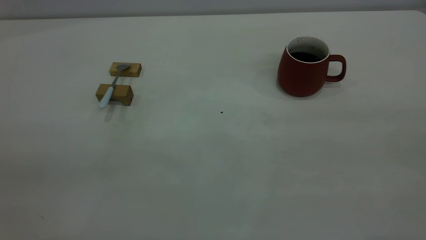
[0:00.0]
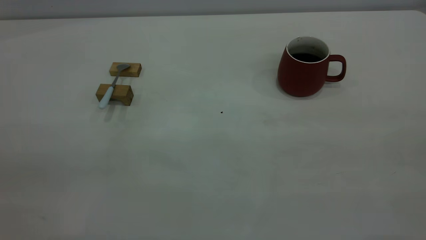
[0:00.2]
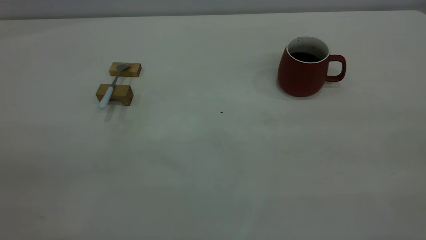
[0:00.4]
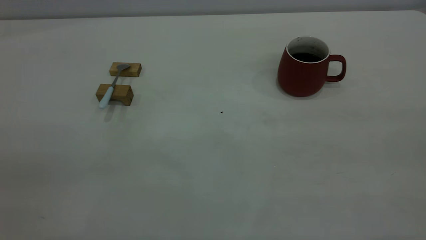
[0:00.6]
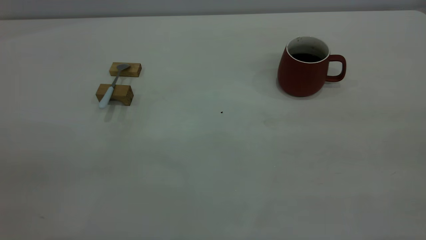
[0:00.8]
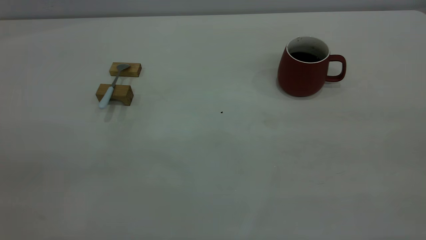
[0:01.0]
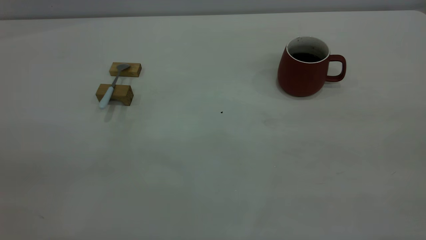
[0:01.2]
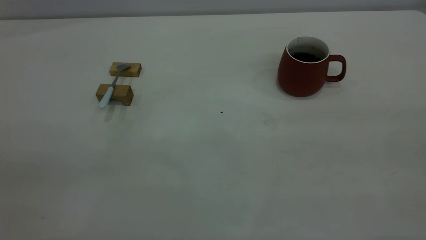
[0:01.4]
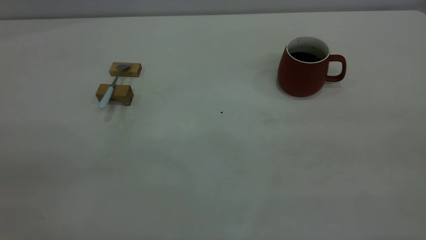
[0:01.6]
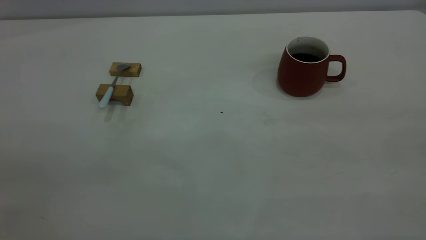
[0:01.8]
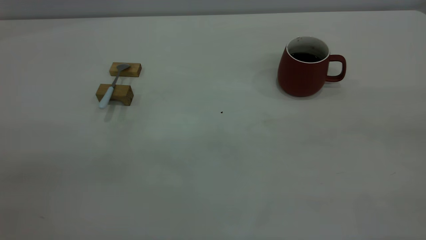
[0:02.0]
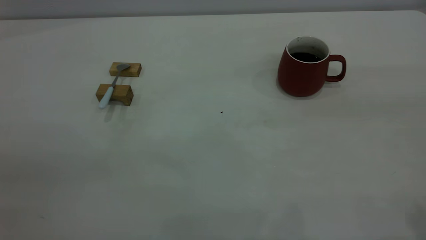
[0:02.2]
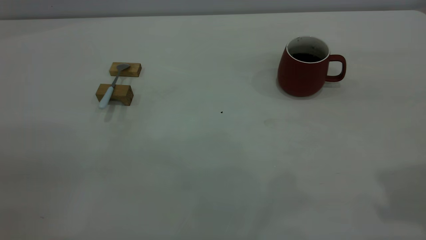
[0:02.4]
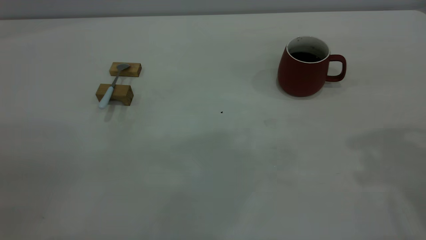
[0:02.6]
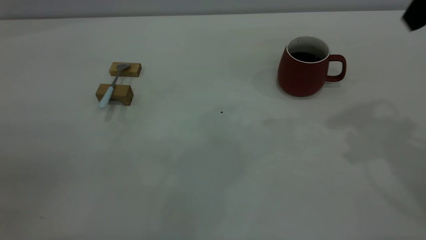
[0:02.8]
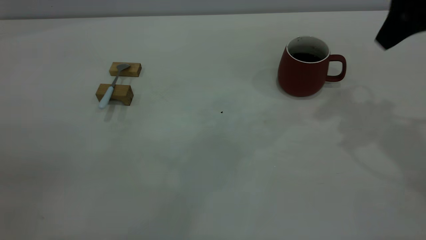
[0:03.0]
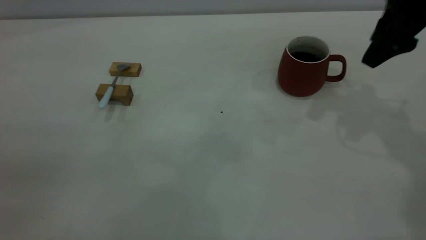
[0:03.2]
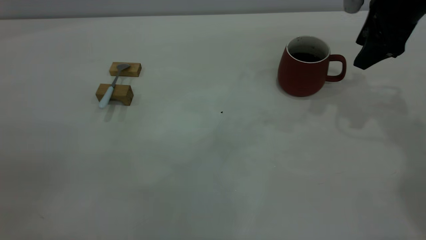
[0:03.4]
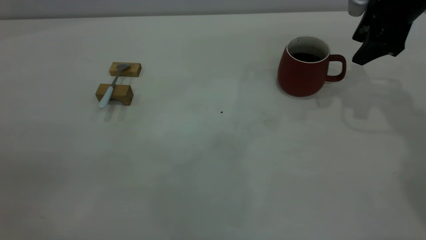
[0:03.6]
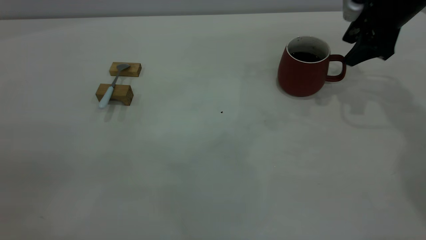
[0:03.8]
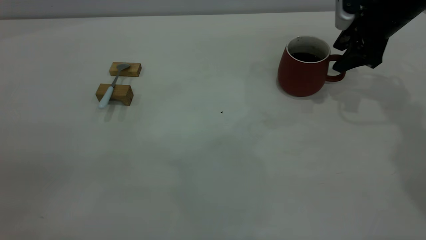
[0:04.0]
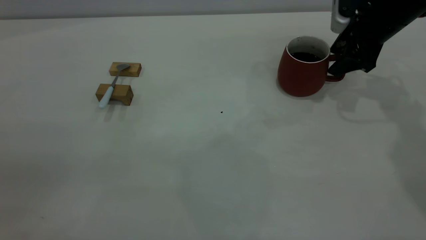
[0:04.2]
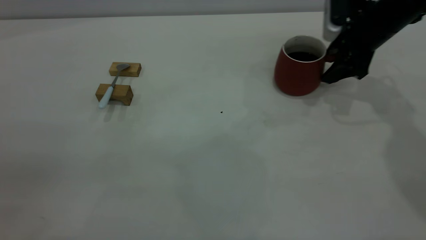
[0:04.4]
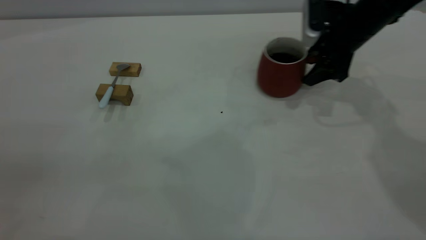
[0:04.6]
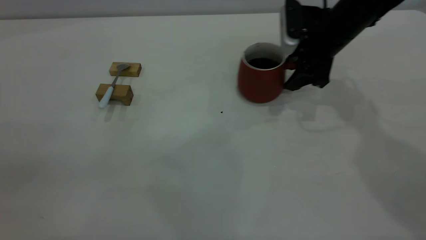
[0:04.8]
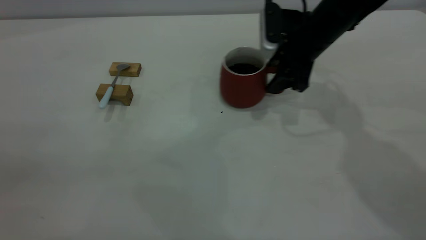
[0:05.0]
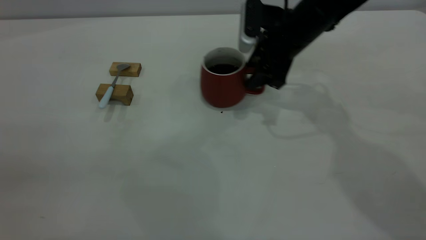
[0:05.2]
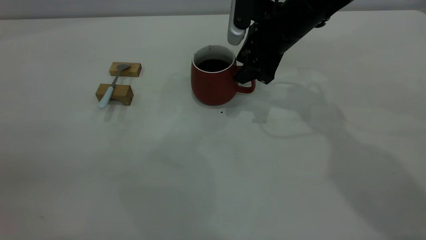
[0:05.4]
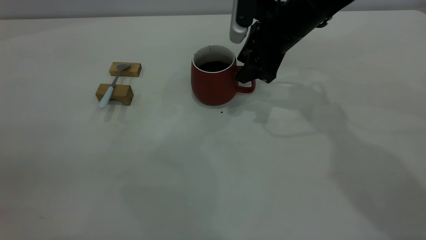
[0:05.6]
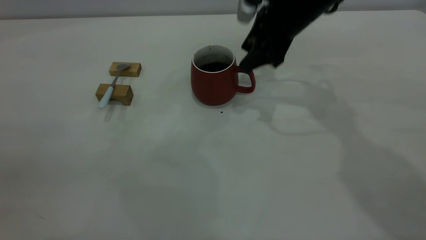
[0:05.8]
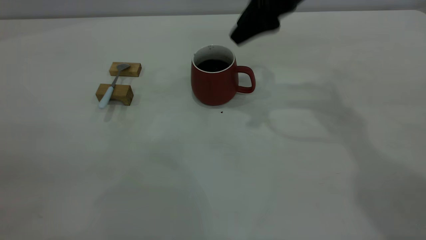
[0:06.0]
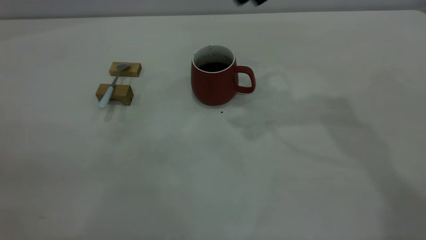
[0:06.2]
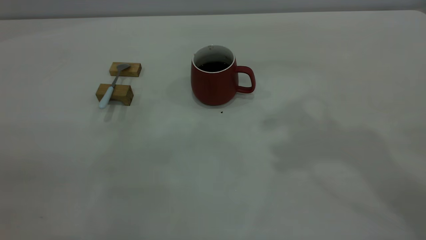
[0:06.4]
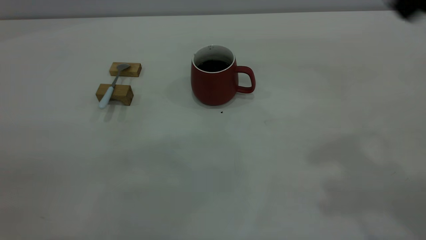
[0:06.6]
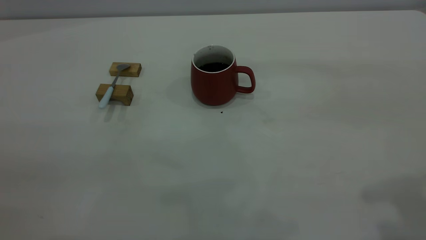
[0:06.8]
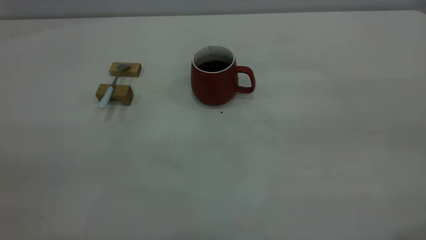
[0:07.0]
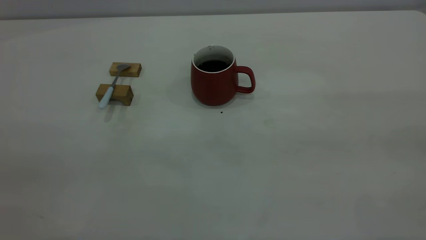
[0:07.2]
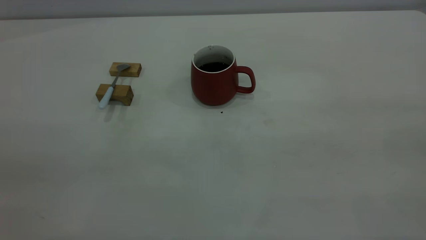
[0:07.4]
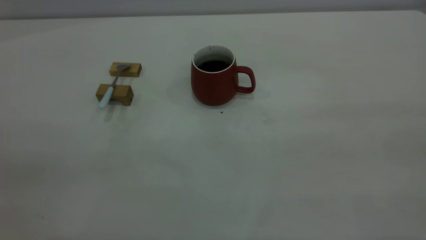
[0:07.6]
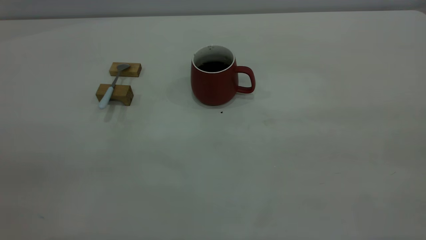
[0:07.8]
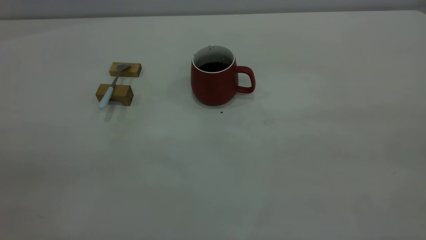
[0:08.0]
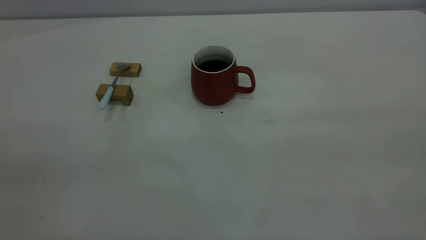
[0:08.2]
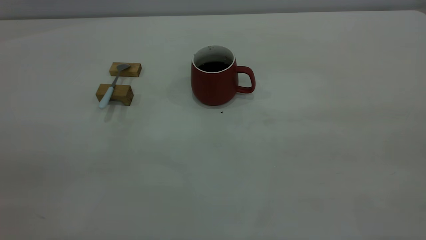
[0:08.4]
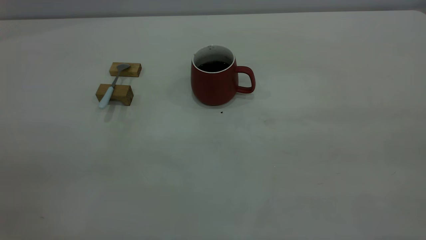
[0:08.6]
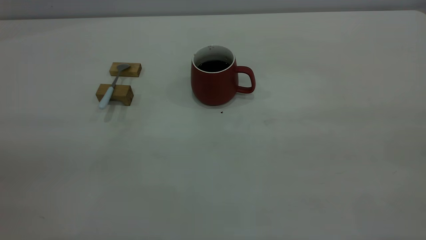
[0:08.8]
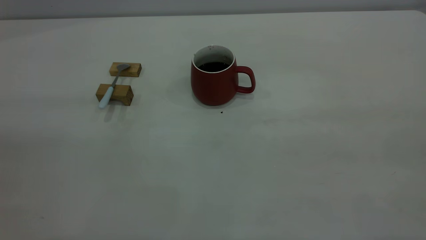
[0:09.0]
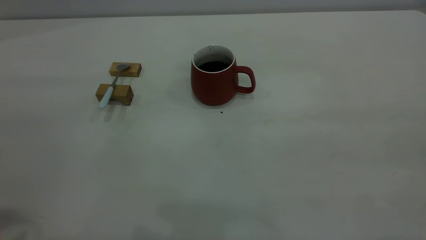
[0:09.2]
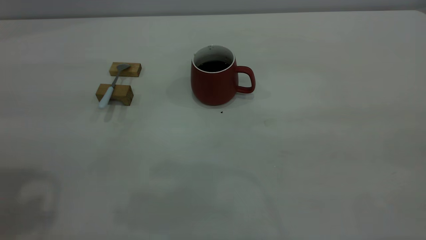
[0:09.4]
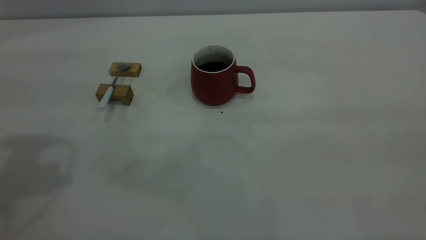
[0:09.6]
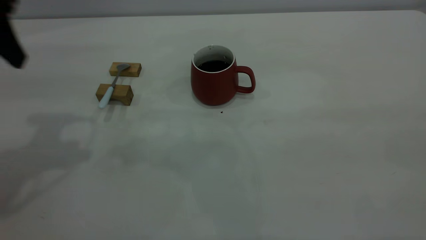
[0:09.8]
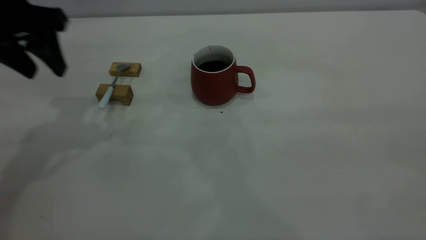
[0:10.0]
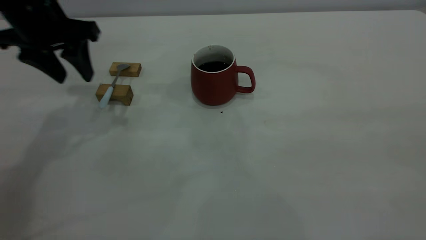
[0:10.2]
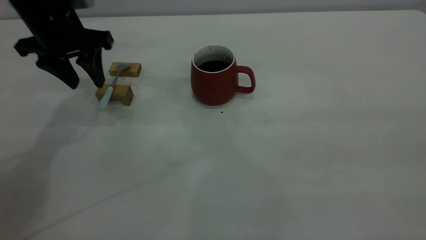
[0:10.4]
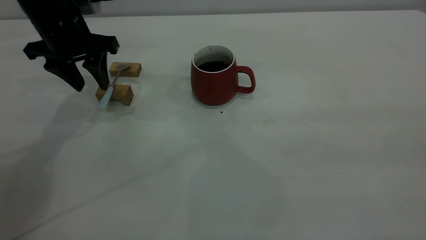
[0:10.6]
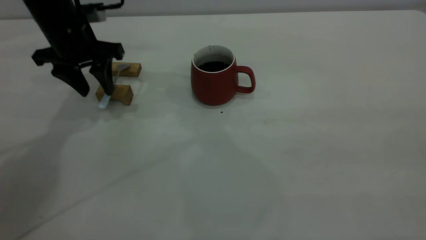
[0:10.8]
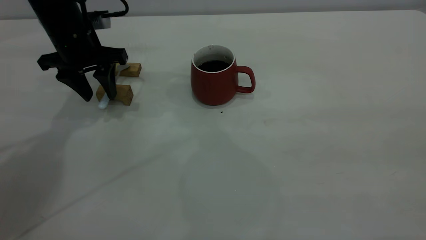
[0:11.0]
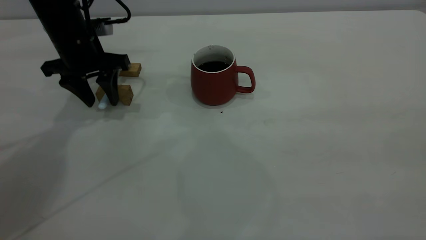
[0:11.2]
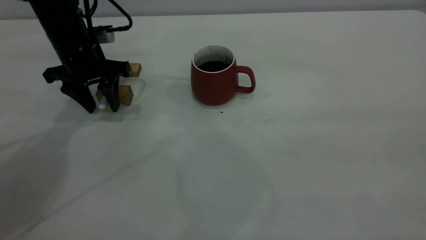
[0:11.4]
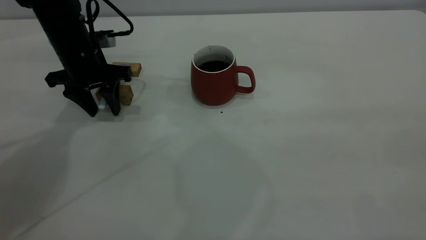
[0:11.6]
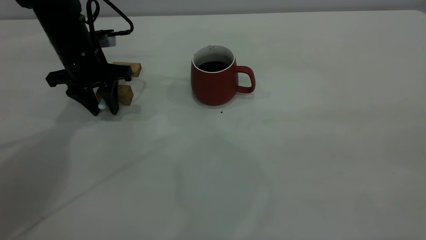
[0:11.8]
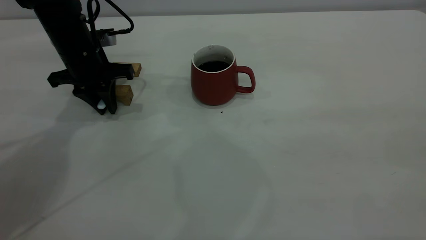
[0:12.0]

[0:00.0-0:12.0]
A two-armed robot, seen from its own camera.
Step, 0:00.0 to 0:05.8: Move the cup with coffee to the center of view.
0:00.0 to 0:01.6: Both grippers stay about where they are.
0:01.6 to 0:03.0: The right gripper shifts some 35 cm forward.
0:03.0 to 0:04.4: The right gripper is displaced downward and forward by roughly 15 cm.
0:04.4 to 0:06.0: The right gripper moves to the left and upward, approximately 20 cm.
0:06.0 to 0:07.6: The right gripper moves backward and to the right, roughly 40 cm.
0:09.0 to 0:10.4: The left gripper goes approximately 40 cm forward and downward.
0:10.4 to 0:12.0: The left gripper moves downward, approximately 5 cm, and closes up.

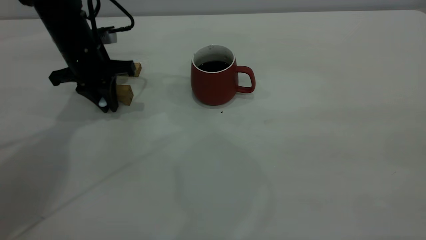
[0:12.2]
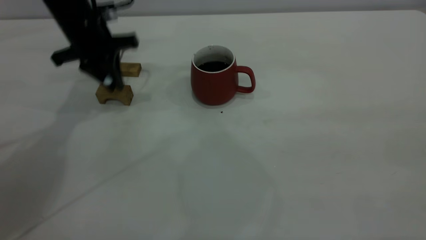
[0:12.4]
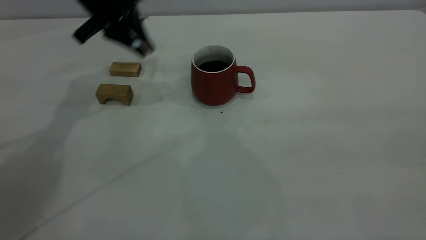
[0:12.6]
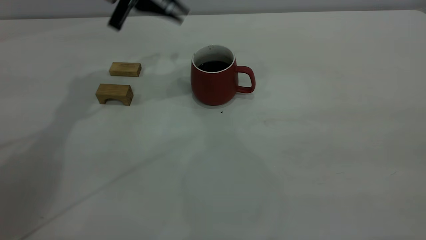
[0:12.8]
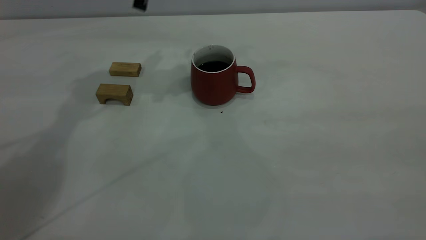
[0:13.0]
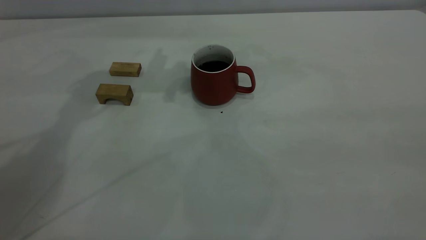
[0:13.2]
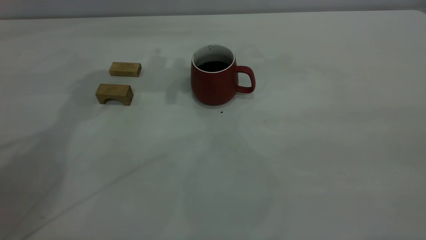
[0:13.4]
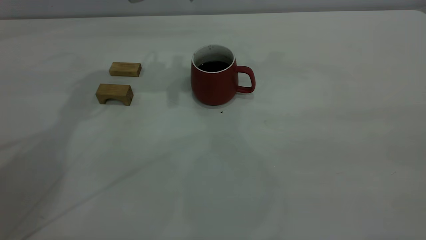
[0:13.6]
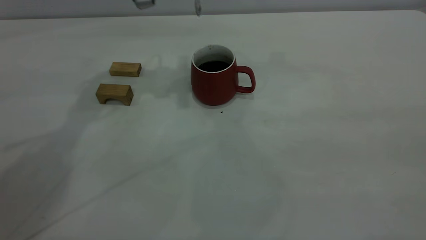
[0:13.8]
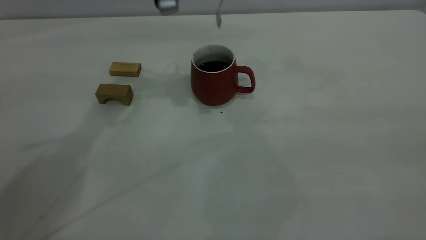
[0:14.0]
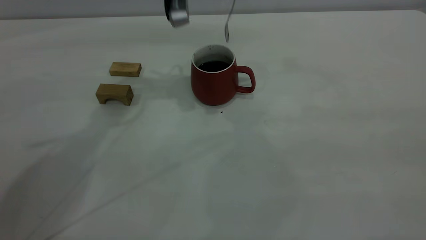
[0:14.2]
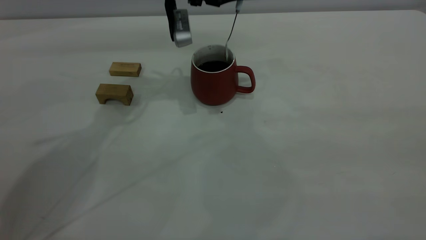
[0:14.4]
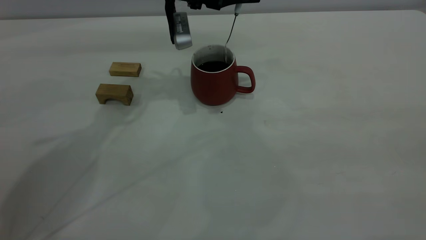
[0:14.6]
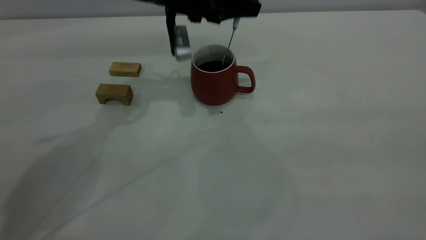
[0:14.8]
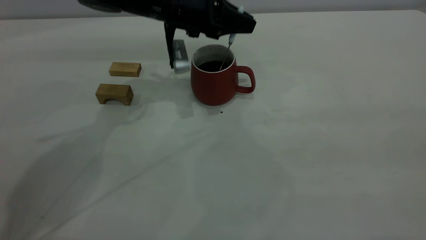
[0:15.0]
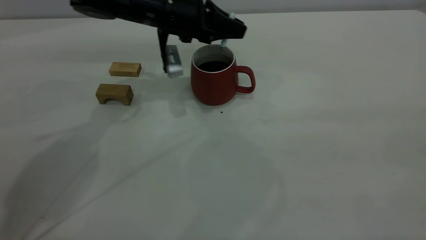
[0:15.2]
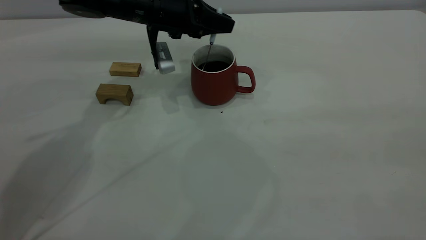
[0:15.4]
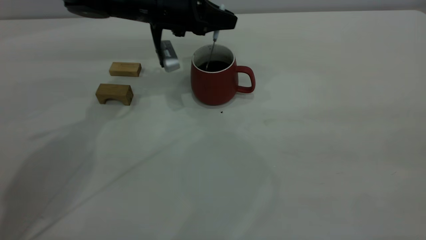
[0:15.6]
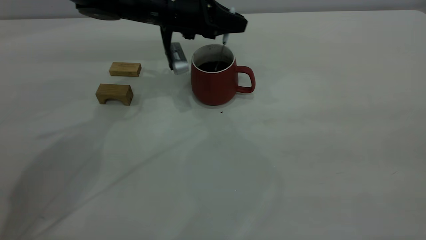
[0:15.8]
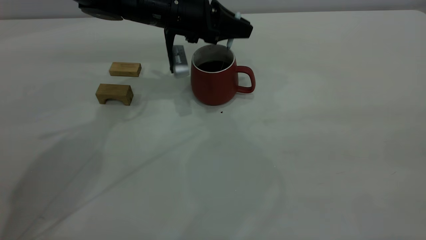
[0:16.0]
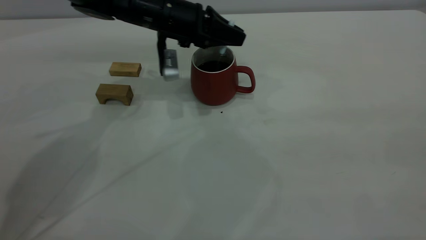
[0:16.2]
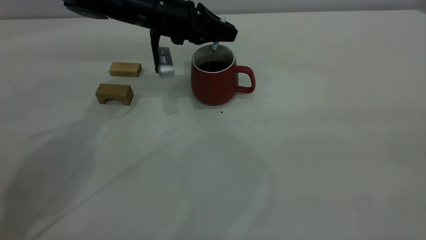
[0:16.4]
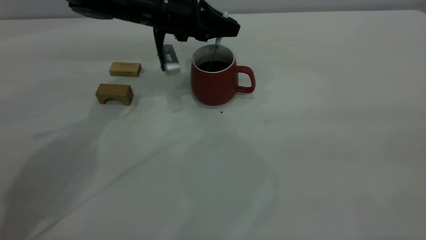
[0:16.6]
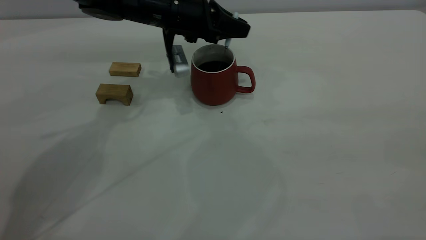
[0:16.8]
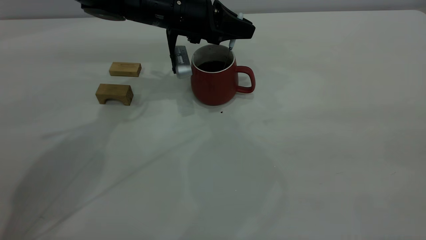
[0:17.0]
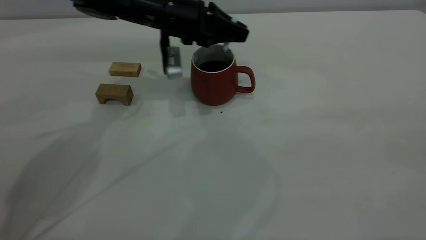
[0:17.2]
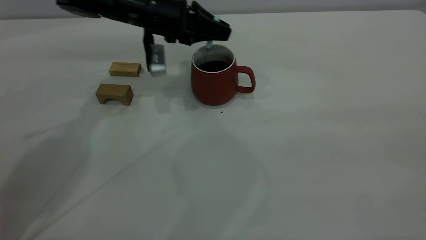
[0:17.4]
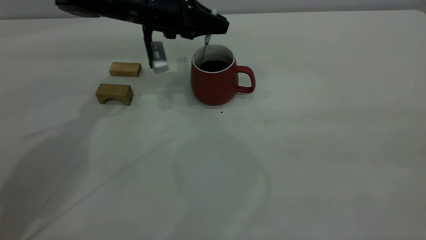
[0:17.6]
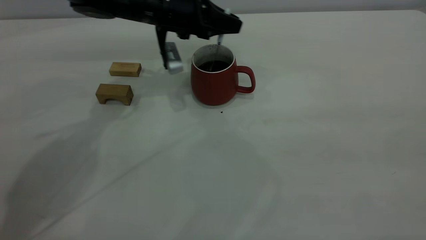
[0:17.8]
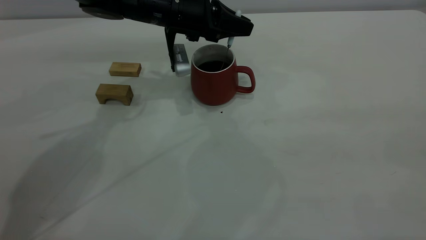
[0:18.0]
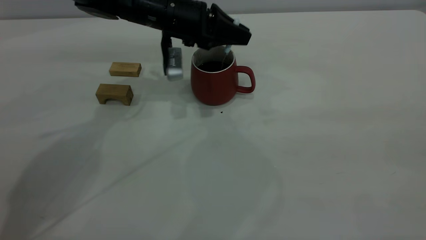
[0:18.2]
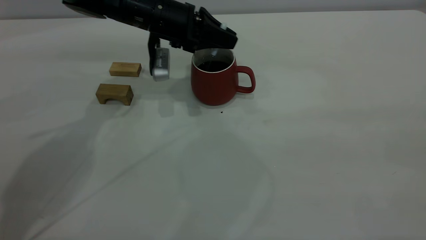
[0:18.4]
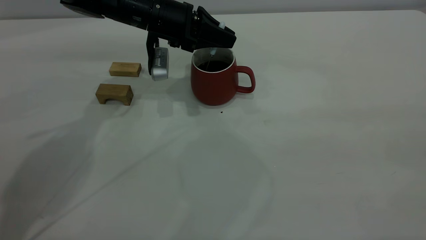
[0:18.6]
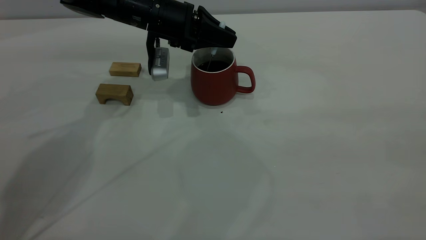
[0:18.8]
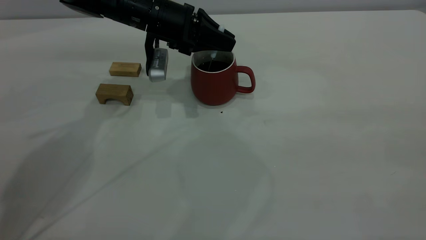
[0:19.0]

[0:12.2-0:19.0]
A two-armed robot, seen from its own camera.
0:12.2 to 0:13.6: The left gripper goes some 15 cm upward and to the right.
0:13.6 to 0:15.0: The left gripper is displaced downward and to the right by about 10 cm.
0:15.0 to 0:19.0: There are only small adjustments of the grippers.
